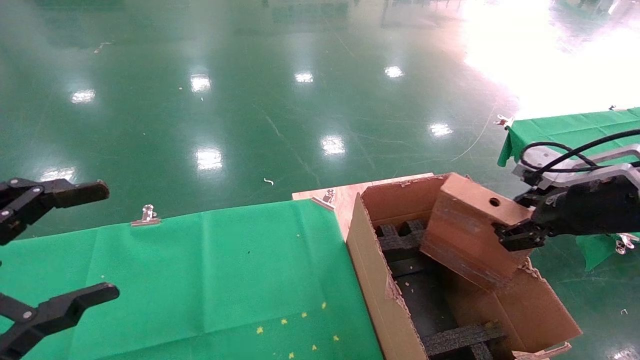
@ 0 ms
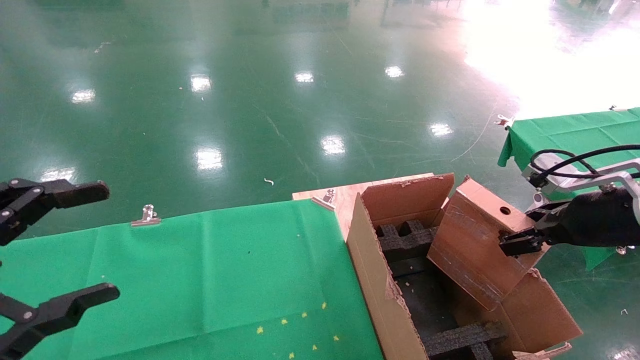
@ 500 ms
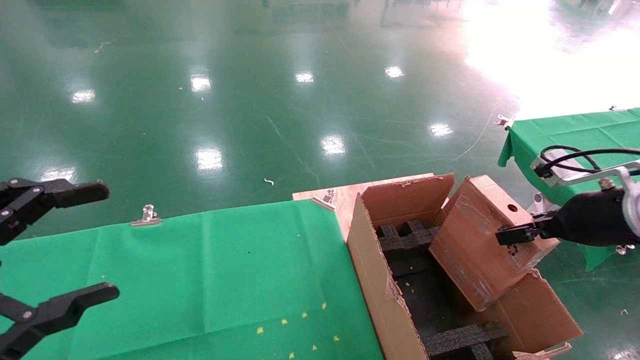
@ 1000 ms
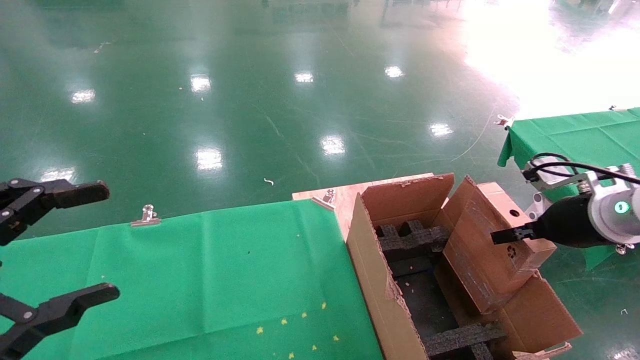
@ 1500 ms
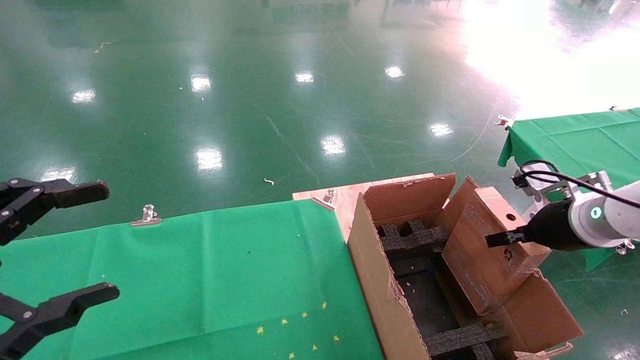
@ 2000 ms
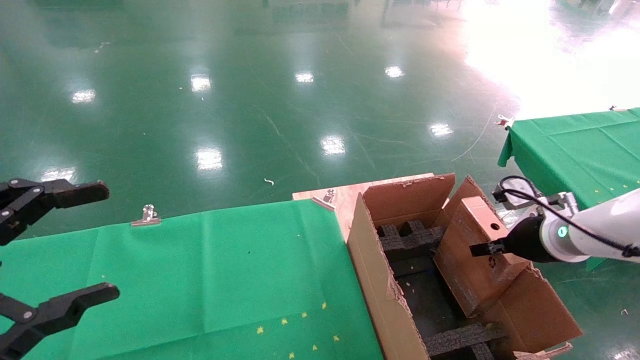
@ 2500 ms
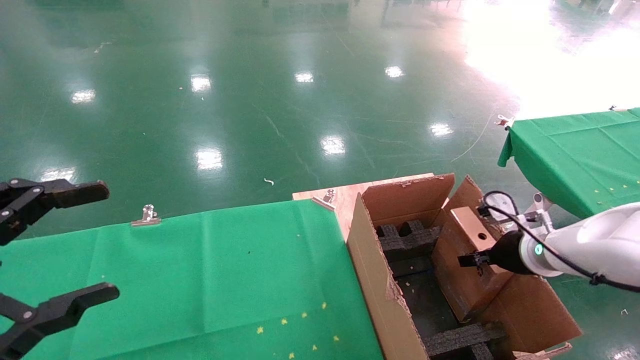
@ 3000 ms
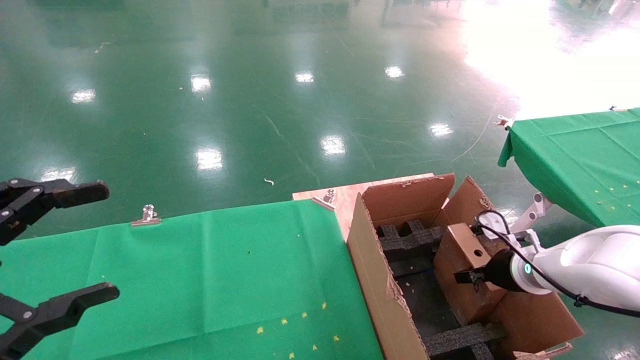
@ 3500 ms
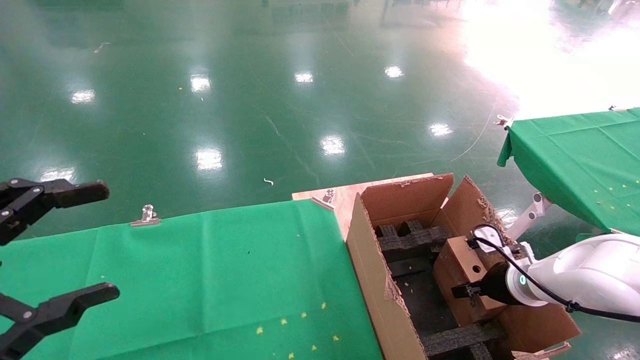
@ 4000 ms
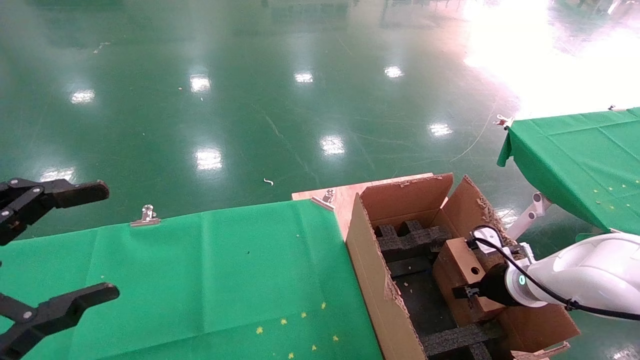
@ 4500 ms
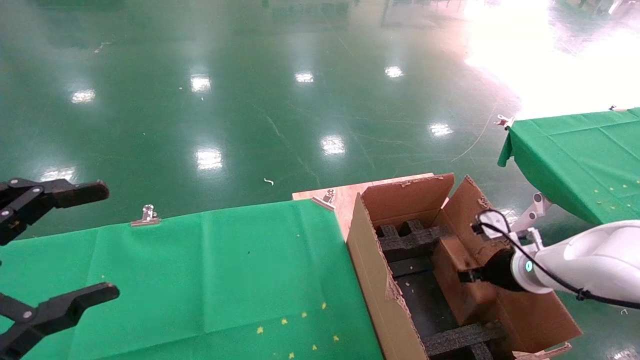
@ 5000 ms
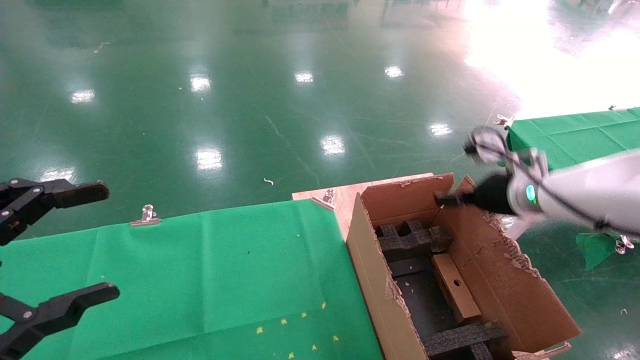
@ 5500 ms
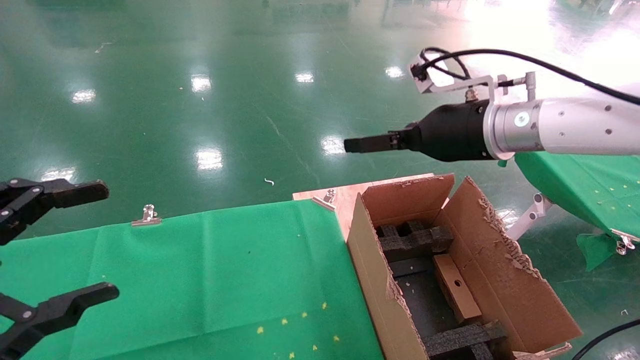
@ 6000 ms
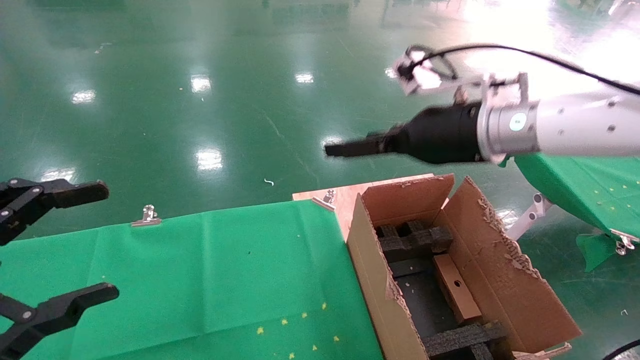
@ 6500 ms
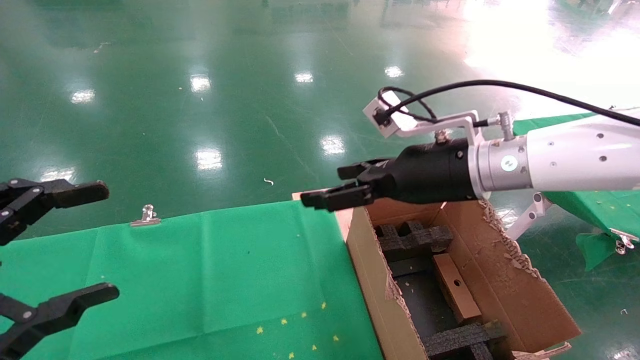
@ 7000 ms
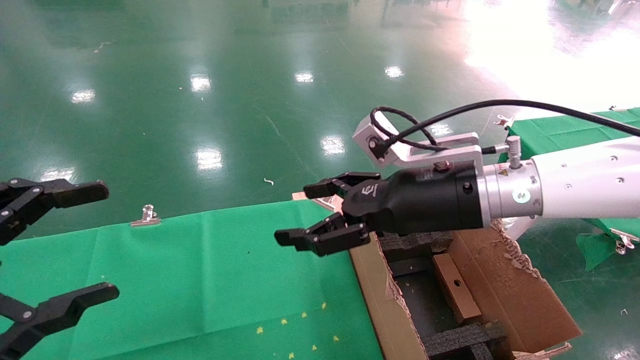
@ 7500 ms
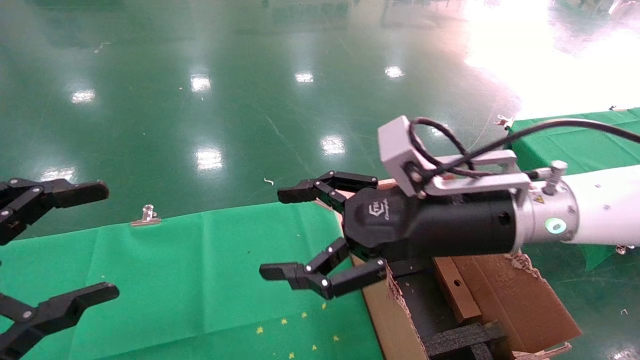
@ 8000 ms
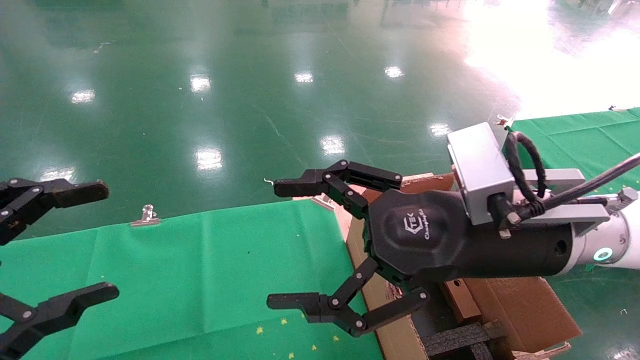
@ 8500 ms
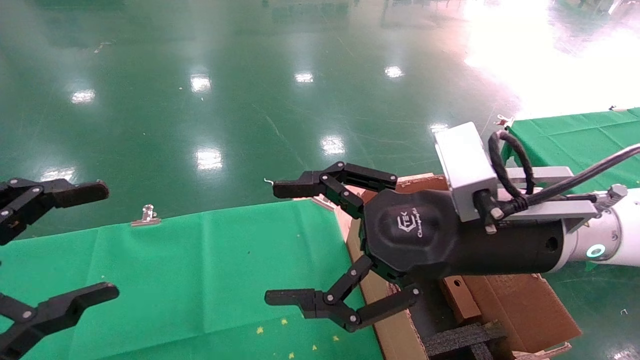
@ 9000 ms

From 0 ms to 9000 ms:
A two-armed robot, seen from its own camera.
Task of the whole recording: using a robotic arm to pick up a cardboard box and palace it the carton.
Step, from 0 ms to 5000 ms: Place the mouse and the power cord paper box into the container.
From 0 ms to 2000 ms: The right gripper heads downward and forward, covering some 10 cm.
From 2000 ms to 4500 ms: The right gripper shifts about 15 cm downward.
From 4500 ms to 7000 ms: The right gripper shifts approximately 25 cm upward and to the left, and opens.
From 7000 ms to 9000 ms: The right gripper moves backward, roughly 10 cm.
